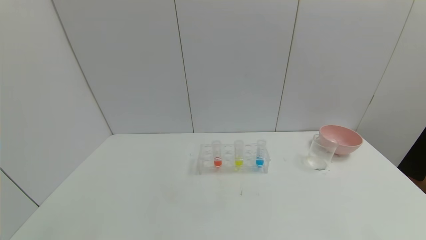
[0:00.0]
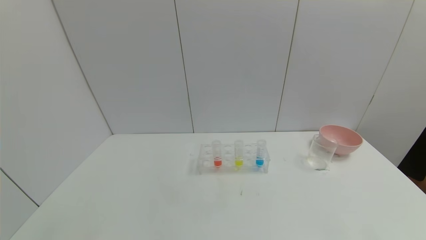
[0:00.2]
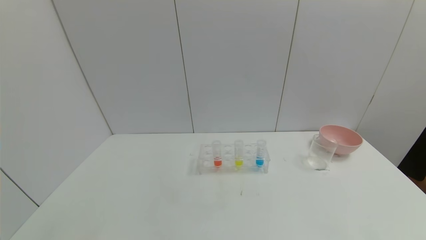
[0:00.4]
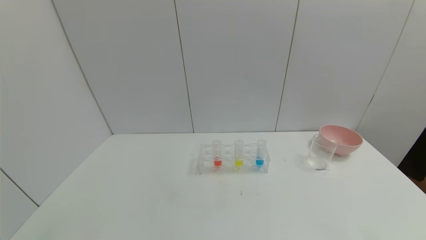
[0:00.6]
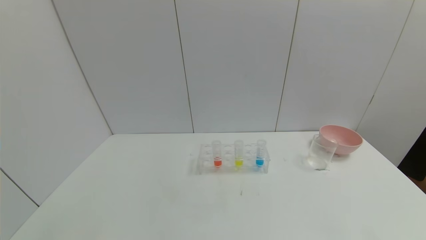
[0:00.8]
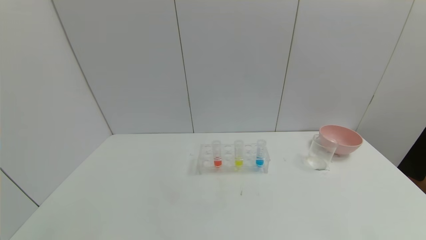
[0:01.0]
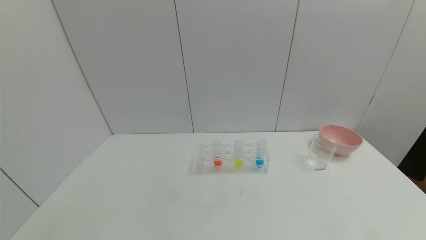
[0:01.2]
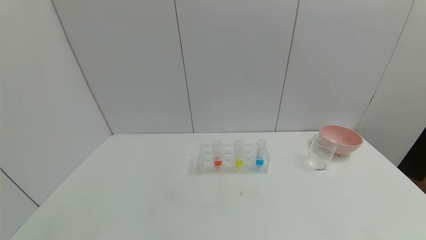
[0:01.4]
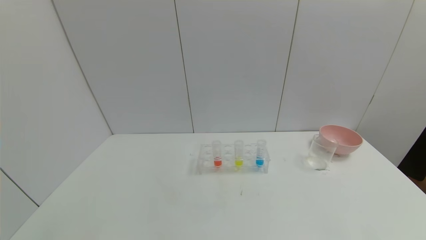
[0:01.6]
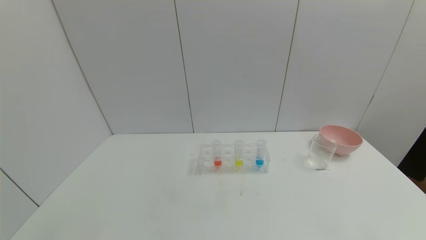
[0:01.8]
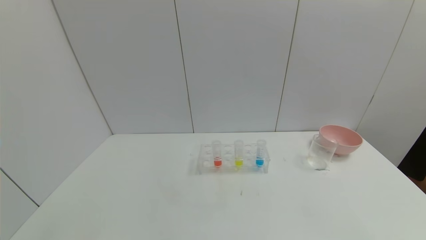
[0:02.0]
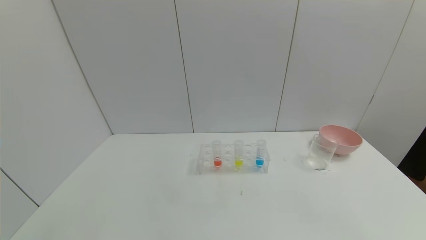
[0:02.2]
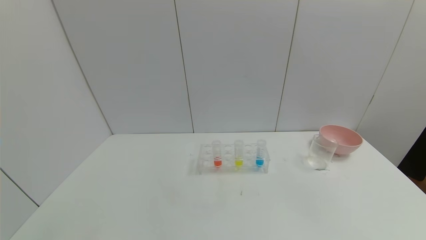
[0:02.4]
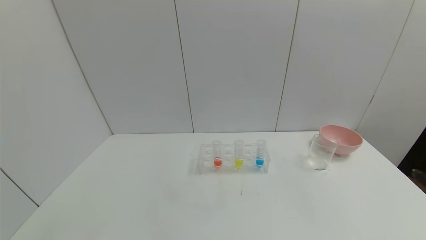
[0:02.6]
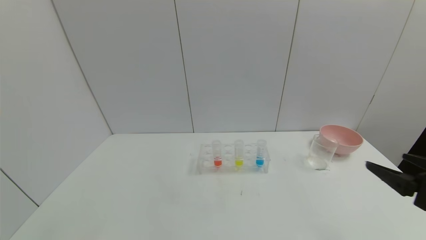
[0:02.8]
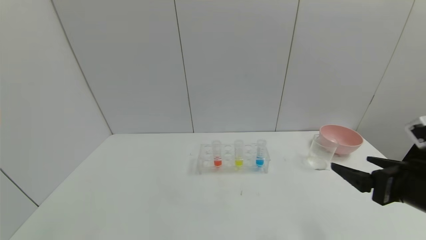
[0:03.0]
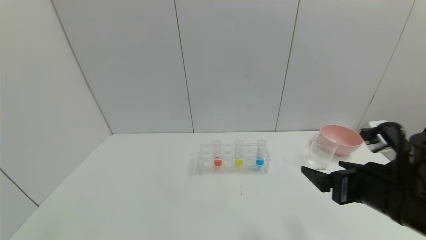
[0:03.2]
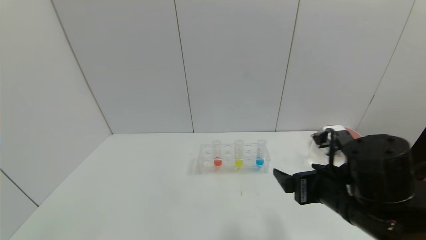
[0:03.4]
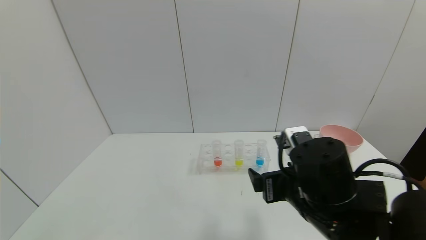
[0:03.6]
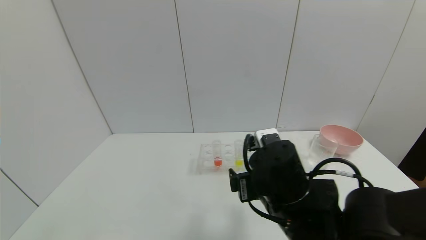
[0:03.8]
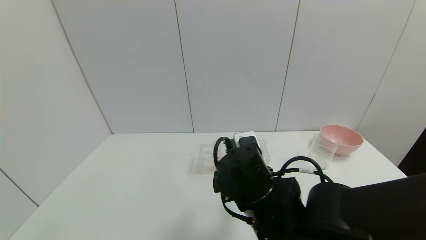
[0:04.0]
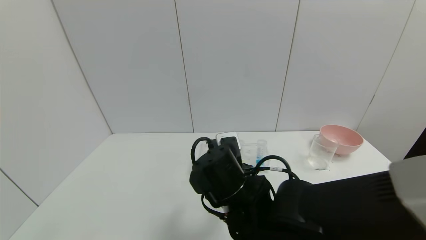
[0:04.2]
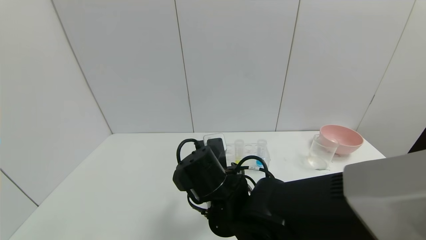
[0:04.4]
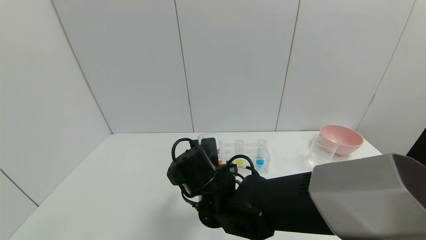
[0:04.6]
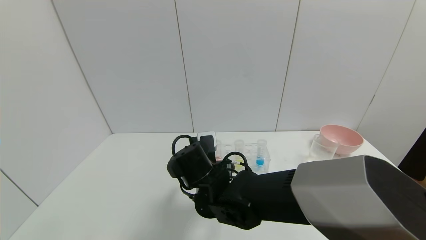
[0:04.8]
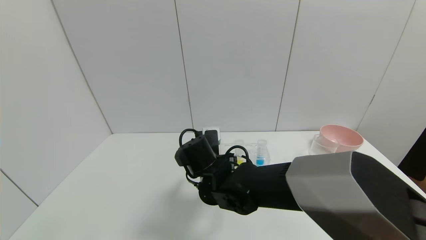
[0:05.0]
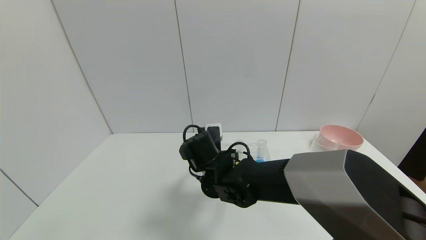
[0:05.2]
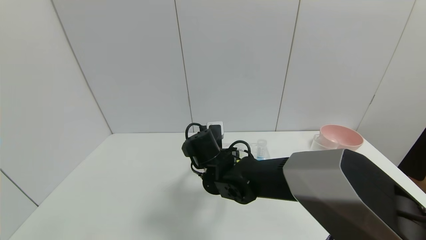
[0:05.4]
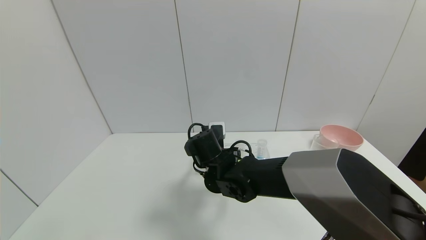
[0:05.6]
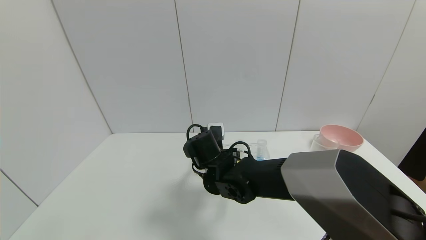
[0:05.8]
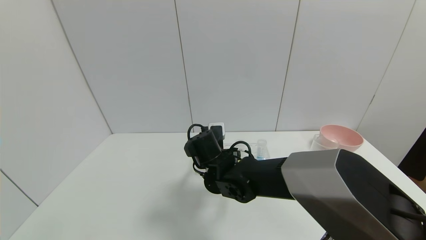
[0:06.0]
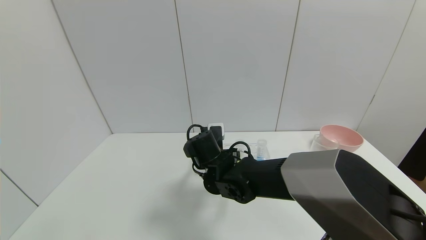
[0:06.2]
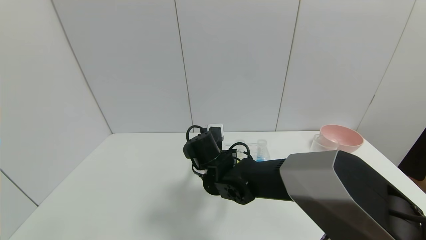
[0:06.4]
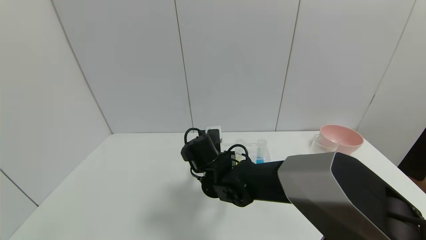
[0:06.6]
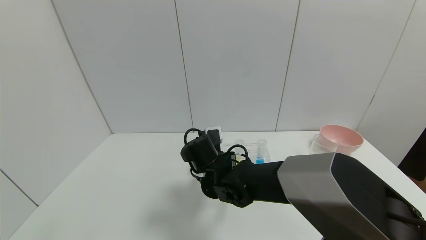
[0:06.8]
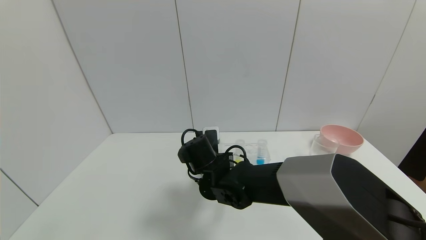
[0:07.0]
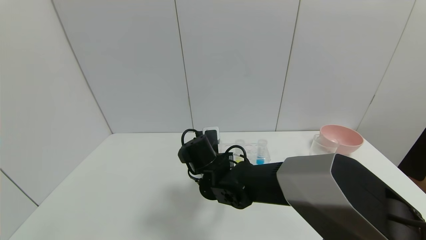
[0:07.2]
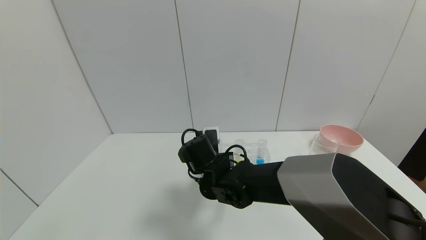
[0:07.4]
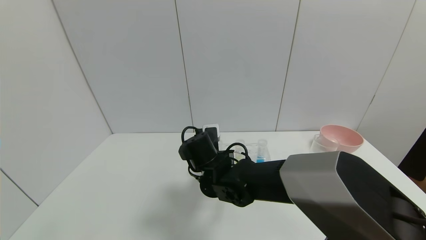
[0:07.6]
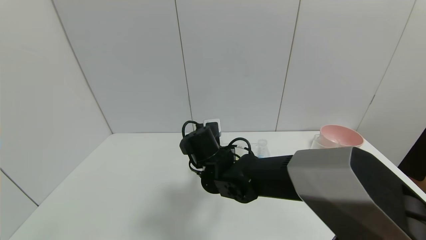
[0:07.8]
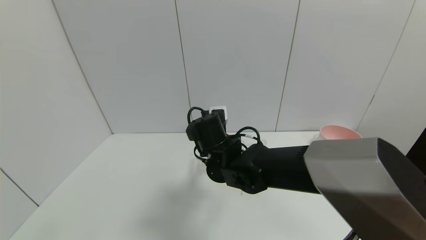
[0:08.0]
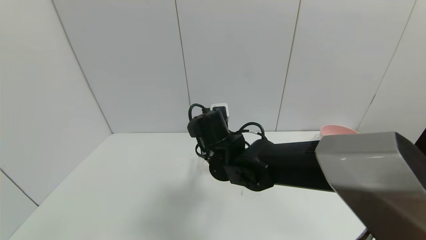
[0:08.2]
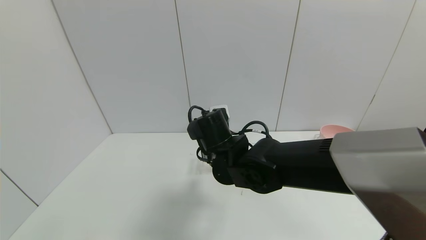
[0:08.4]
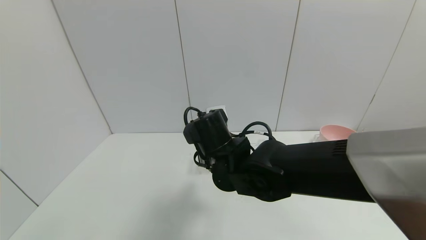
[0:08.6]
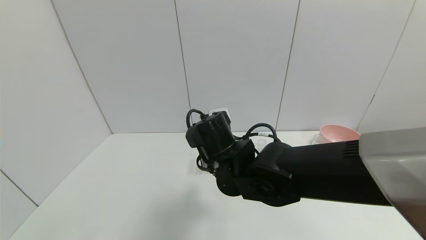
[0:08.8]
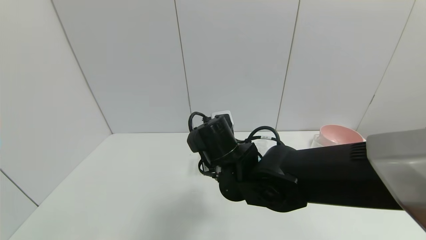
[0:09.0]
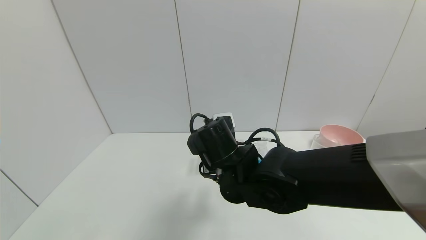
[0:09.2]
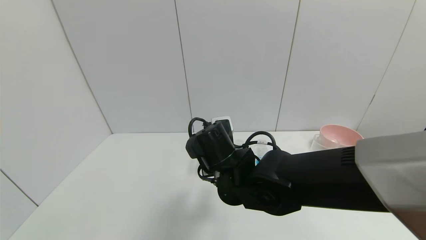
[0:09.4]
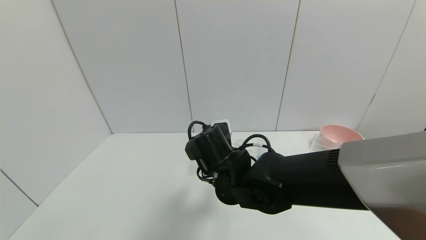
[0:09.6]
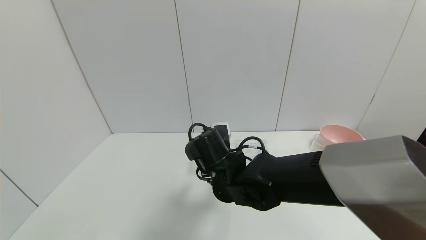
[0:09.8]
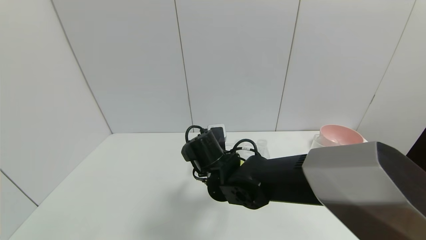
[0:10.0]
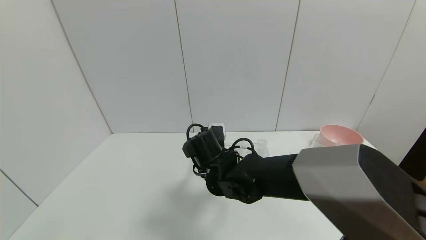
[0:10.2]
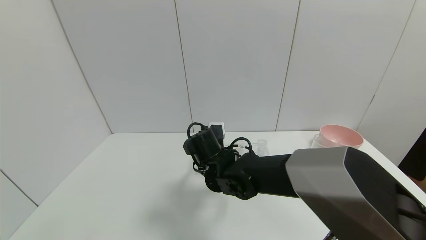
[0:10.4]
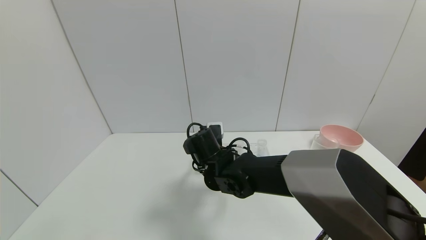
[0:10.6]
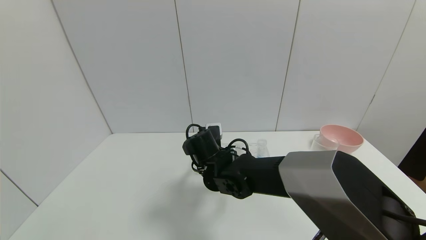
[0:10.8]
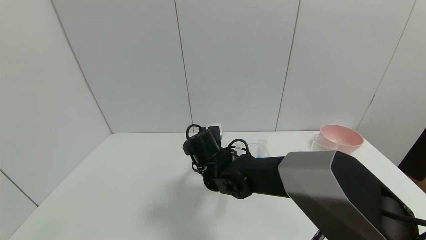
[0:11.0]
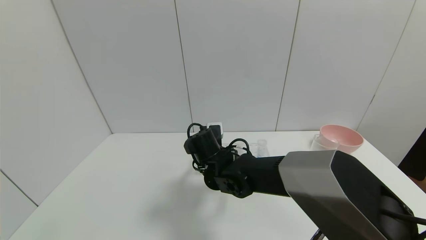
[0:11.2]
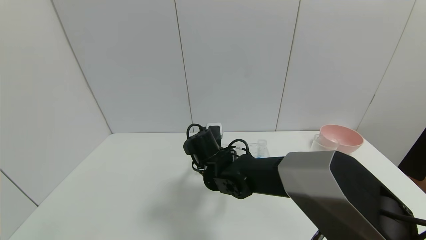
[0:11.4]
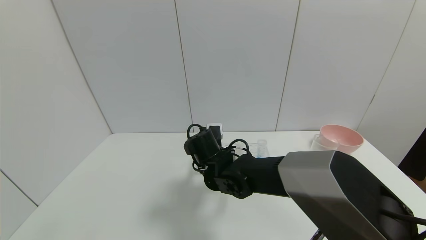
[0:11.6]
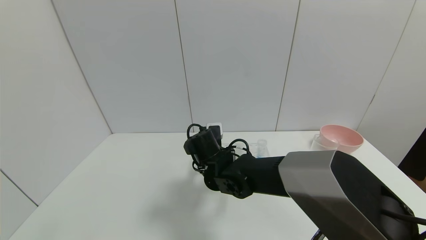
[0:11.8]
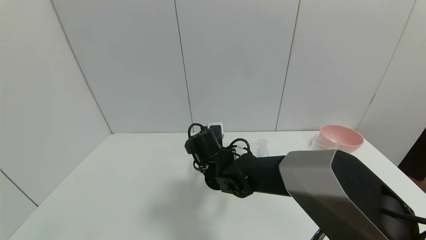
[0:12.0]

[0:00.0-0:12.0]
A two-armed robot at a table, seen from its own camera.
Task of the whole recording: pick up the test tube with yellow pigment and the test tube with red pigment by grippers and pour them into the beaker.
0:00.0 to 0:01.6: Both grippers stay put.
0:01.6 to 0:03.0: The right gripper heads forward and upward, covering some 25 cm.
0:03.0 to 0:04.4: The right gripper moves to the left, about 30 cm.
0:04.4 to 0:06.0: The right gripper is displaced forward by approximately 10 cm.
0:06.0 to 0:07.6: The right gripper closes its fingers.
0:07.6 to 0:09.0: The right gripper heads upward and backward, covering roughly 10 cm.
0:09.0 to 0:10.4: The right gripper goes roughly 10 cm forward and downward, and opens its fingers.
0:10.4 to 0:12.0: The right gripper closes up.

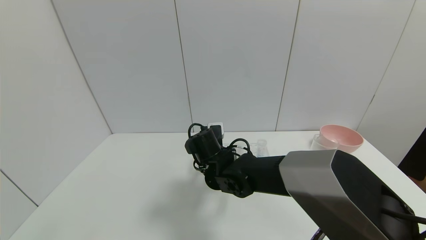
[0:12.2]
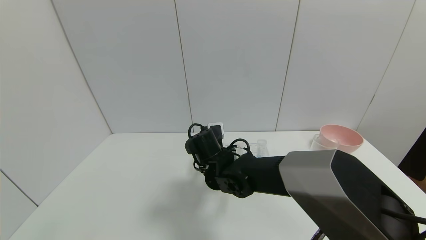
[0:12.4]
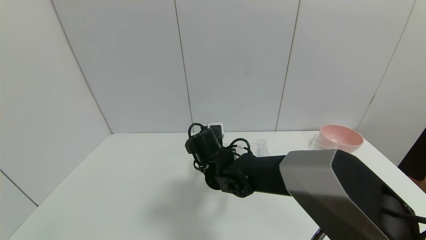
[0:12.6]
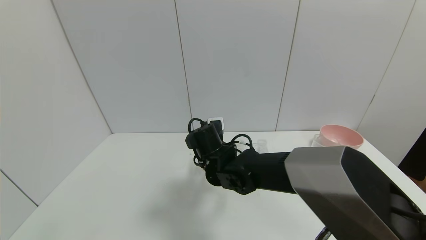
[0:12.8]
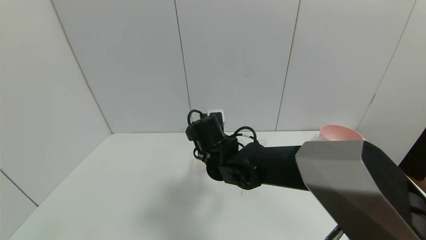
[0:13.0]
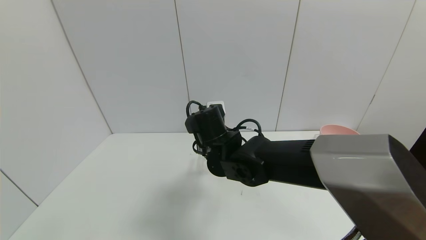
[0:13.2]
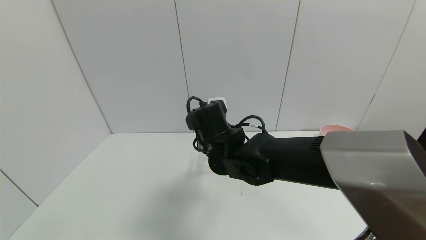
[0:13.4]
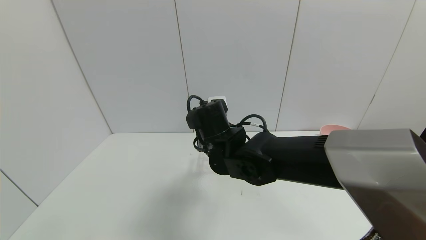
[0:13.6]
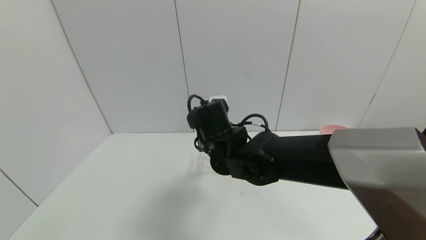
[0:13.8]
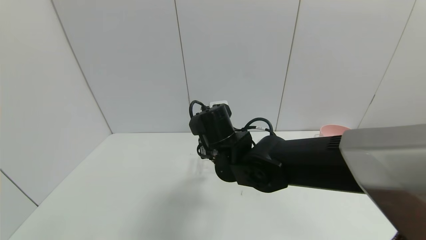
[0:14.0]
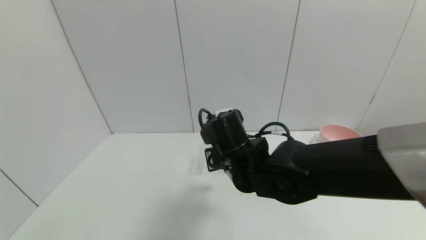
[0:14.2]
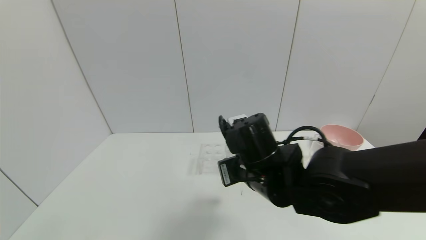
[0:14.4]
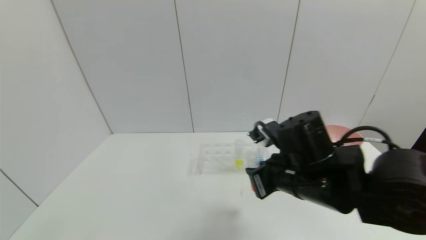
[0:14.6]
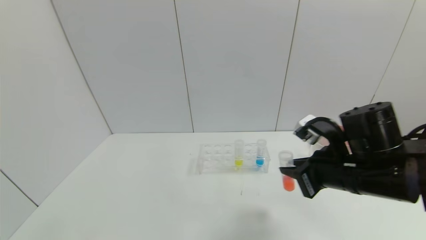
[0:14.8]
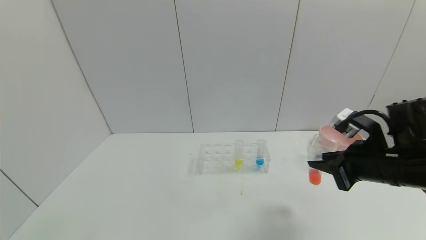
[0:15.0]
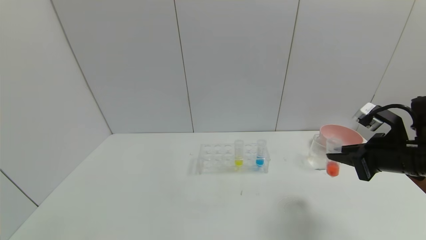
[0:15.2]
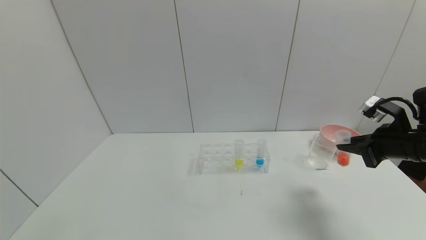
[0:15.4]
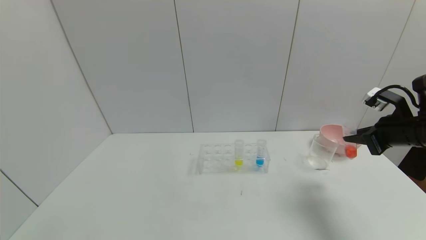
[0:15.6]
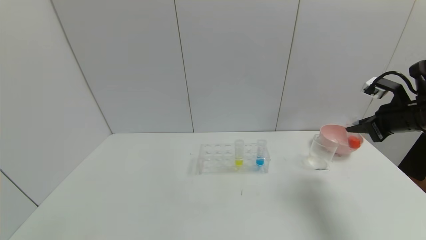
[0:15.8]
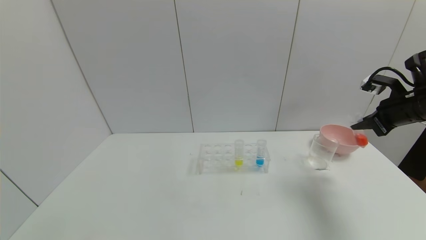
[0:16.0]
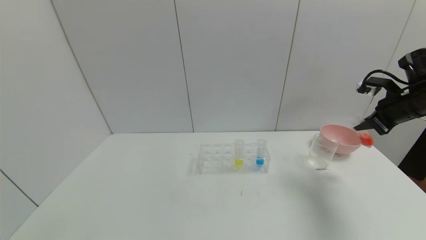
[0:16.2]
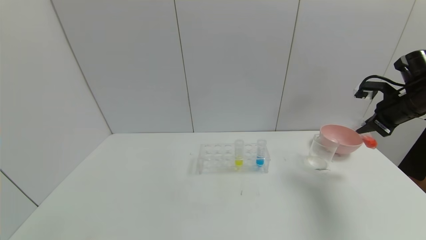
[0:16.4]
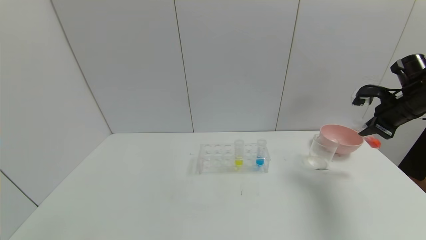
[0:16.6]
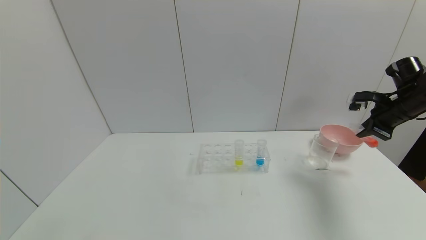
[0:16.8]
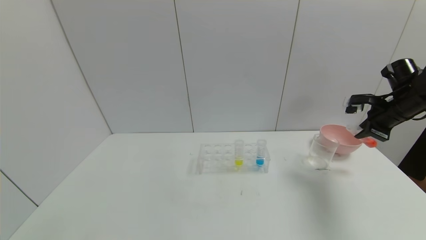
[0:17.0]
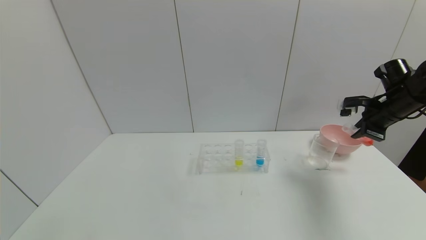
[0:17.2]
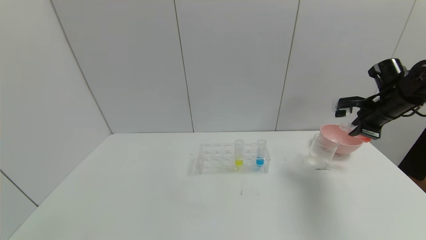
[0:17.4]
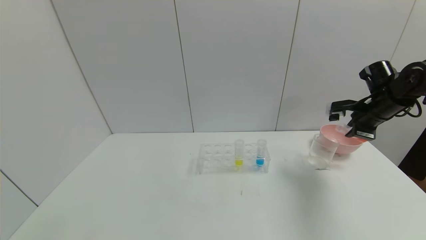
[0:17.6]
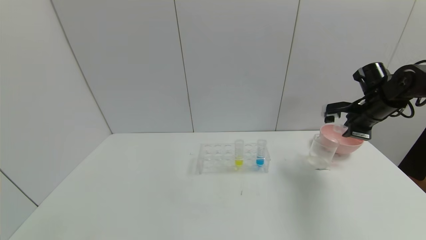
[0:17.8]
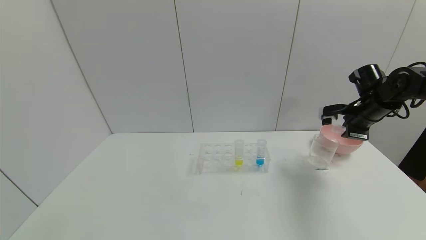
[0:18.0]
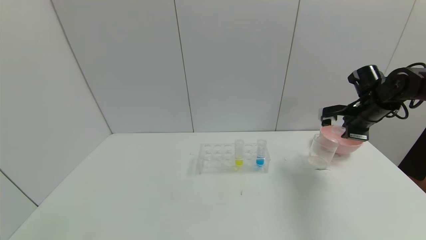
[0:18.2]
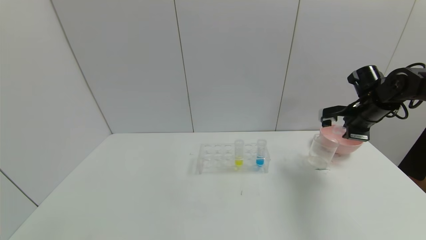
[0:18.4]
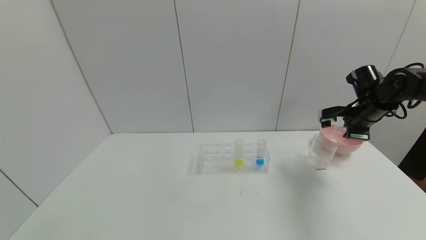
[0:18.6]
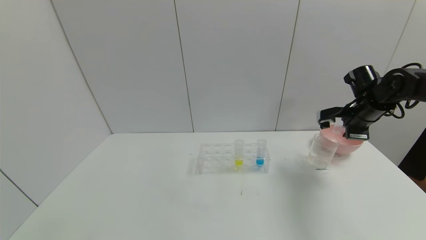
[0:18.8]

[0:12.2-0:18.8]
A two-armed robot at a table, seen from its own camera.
Task of the whole recording: pick up the test tube with yellow pigment and the test tube with red pigment by grippers and pour them into the beaker.
Step, 0:12.2 to 0:15.0: Pick up the test tube containing the red reagent with right gripper.
0:12.2 to 0:13.8: The right gripper goes some 10 cm upward.
0:13.8 to 0:15.4: The right gripper heads to the right, covering approximately 35 cm.
0:15.4 to 0:17.2: The right gripper travels forward by about 10 cm.
0:17.2 to 0:18.8: The right gripper shifts by about 5 cm.
